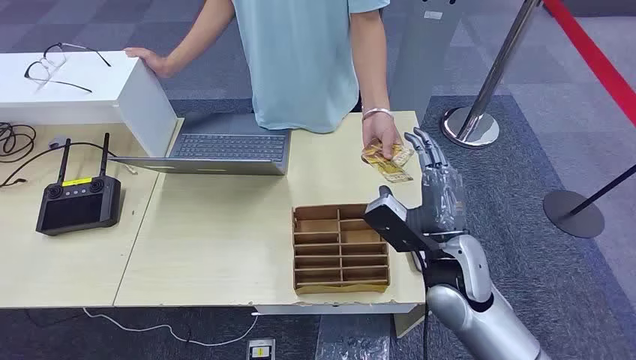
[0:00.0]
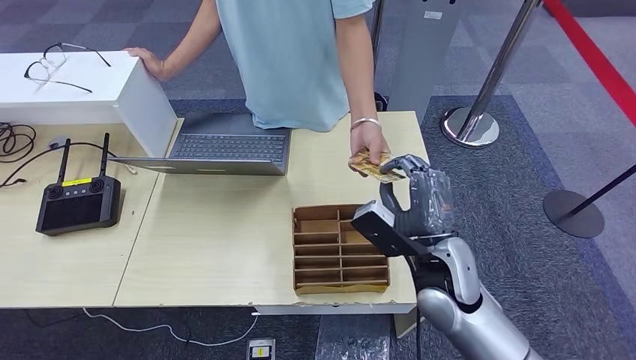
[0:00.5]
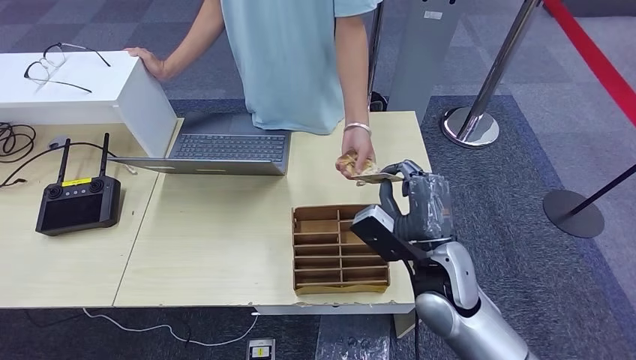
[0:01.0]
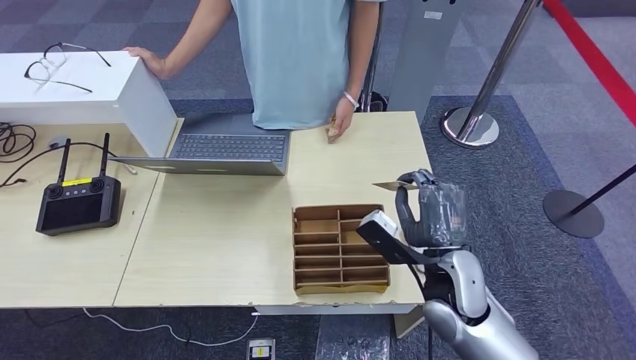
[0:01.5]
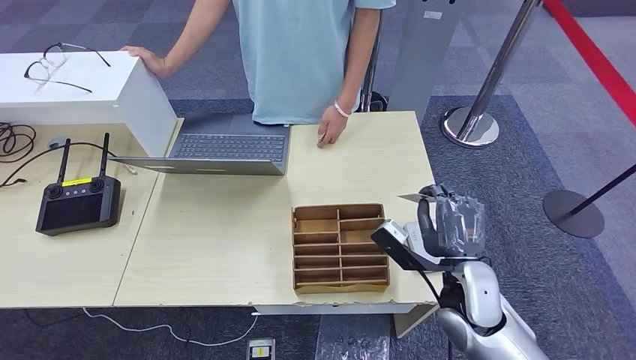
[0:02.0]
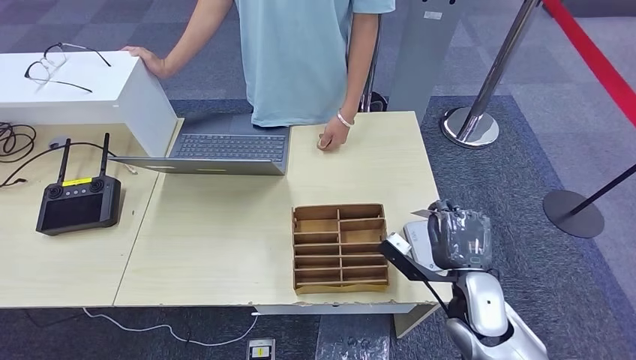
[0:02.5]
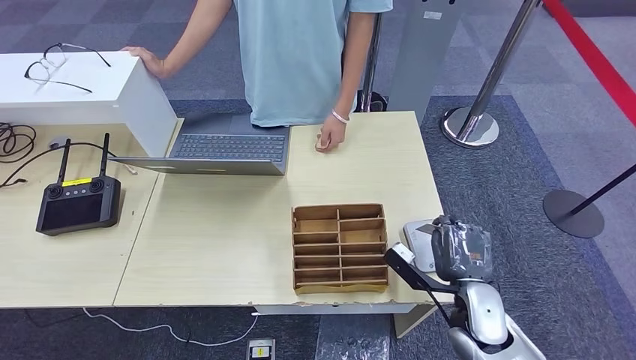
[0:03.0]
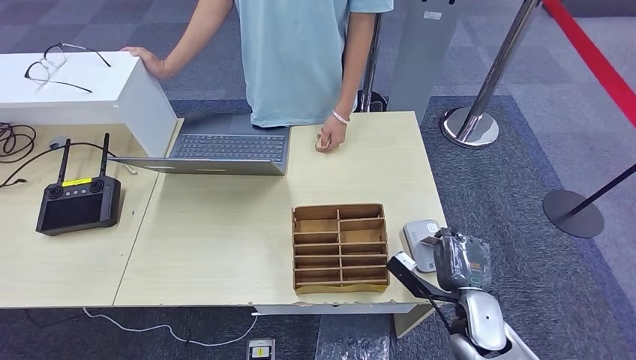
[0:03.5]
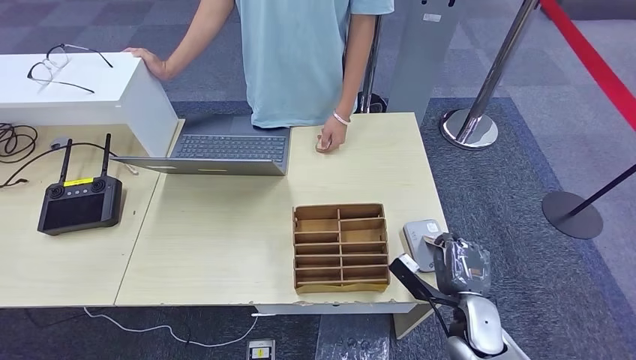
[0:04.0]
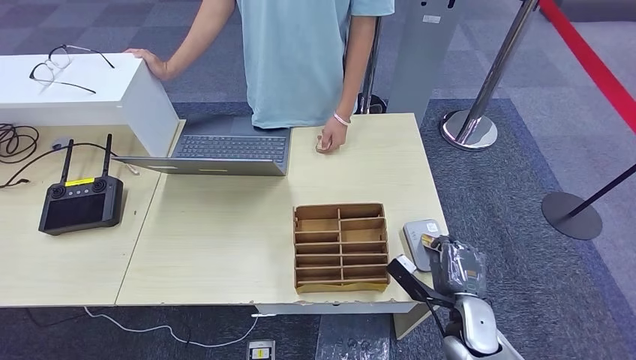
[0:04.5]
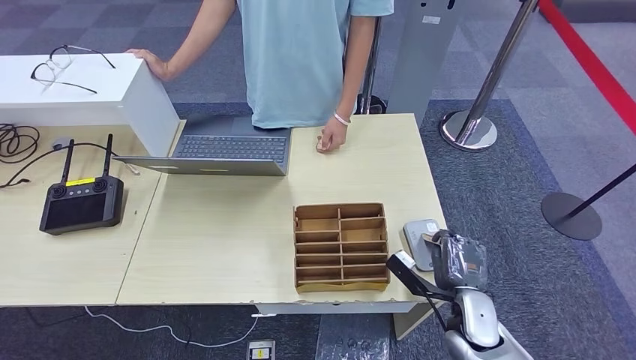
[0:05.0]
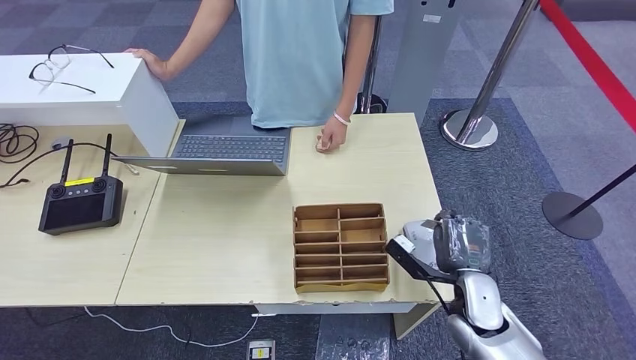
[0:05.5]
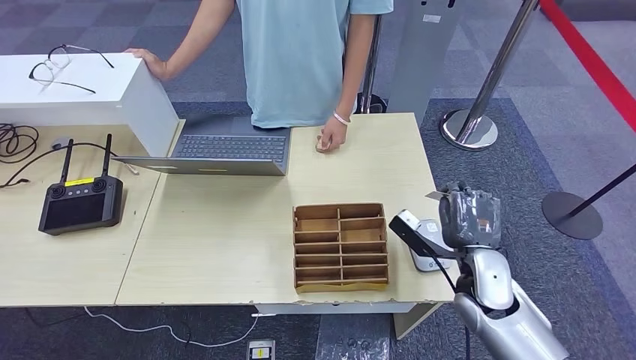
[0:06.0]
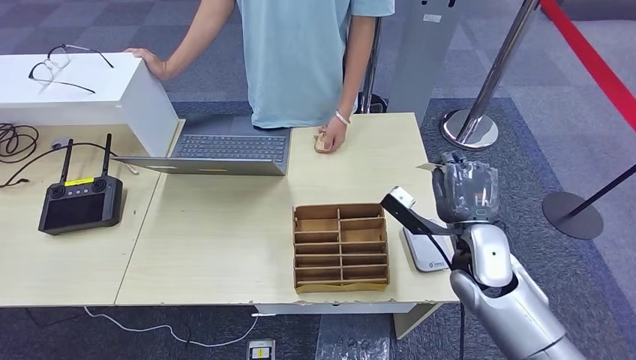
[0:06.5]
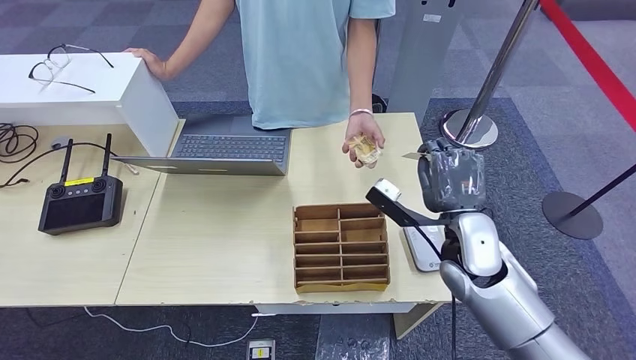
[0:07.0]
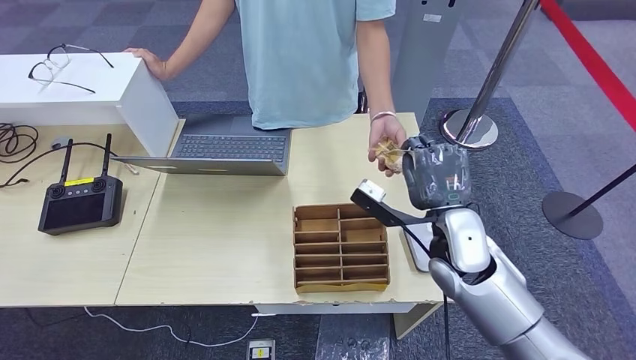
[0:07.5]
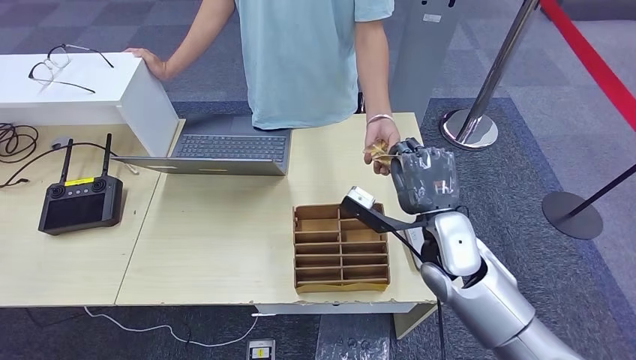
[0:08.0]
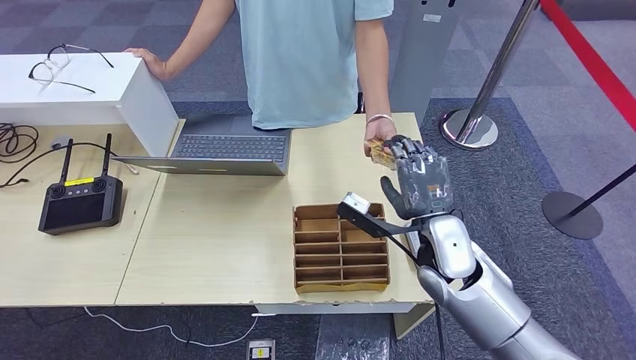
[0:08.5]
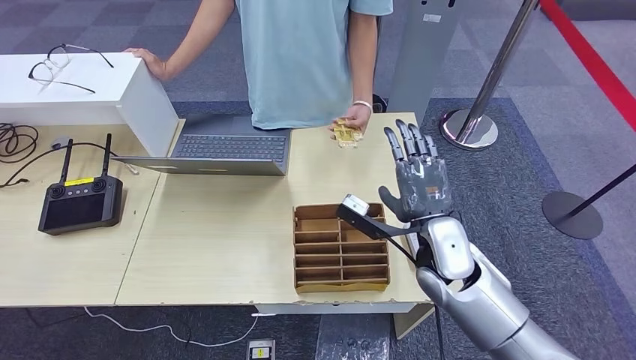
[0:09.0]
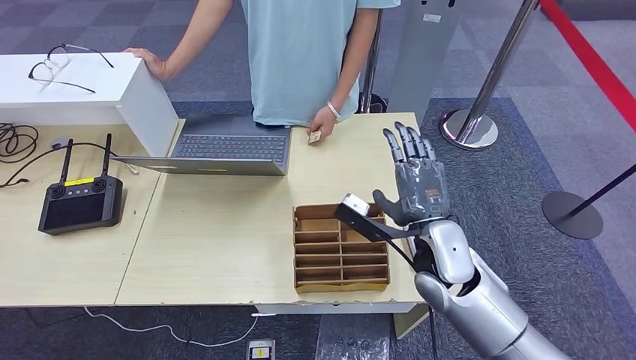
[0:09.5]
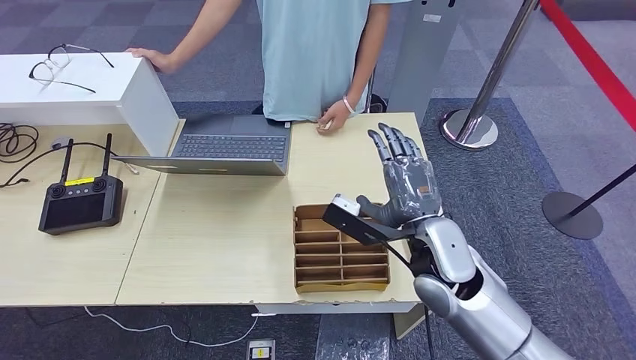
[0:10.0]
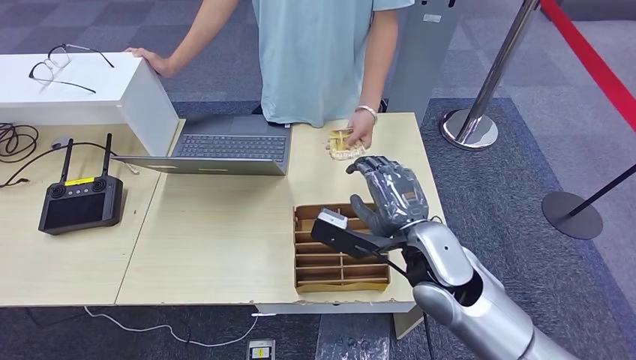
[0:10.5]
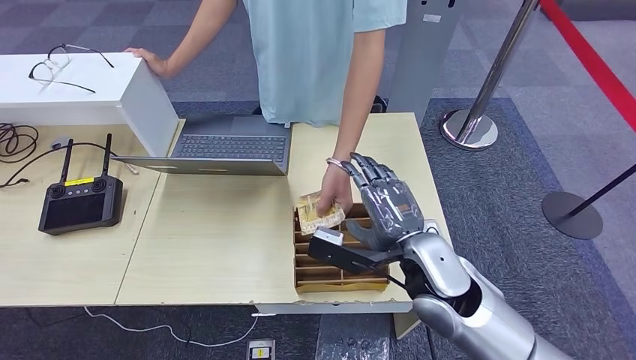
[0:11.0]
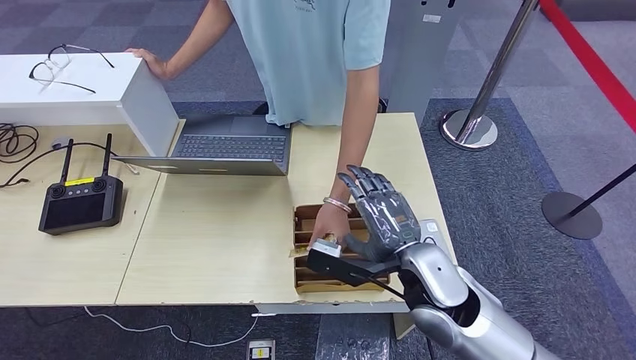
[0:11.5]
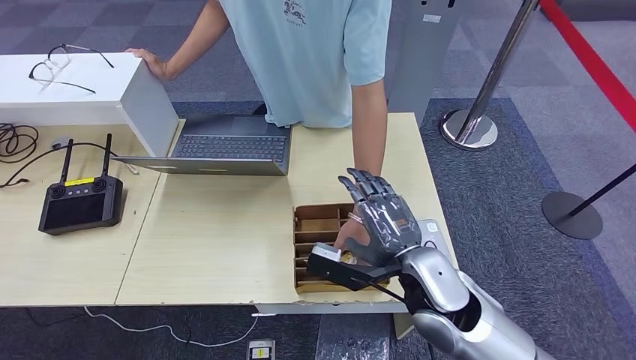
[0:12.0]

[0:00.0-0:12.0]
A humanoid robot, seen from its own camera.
Step, 0:00.0 to 0:01.0: Take the ID card from the person's hand.
Step, 0:01.5 to 0:04.5: Place the ID card on the card reader.
Step, 0:05.0 to 0:09.5: Hand the ID card to the person.
0:02.0 to 0:04.0: The right hand is displaced downward by about 10 cm.
0:04.0 to 0:06.0: The right hand shifts some 10 cm upward.
0:06.0 to 0:08.0: The right hand is displaced to the left and upward by some 10 cm.
0:08.0 to 0:10.0: There are only small adjustments of the hands.

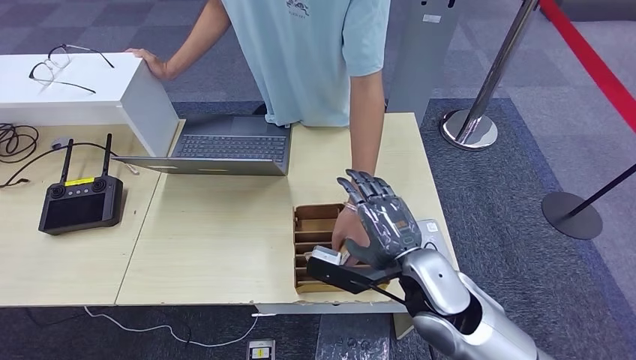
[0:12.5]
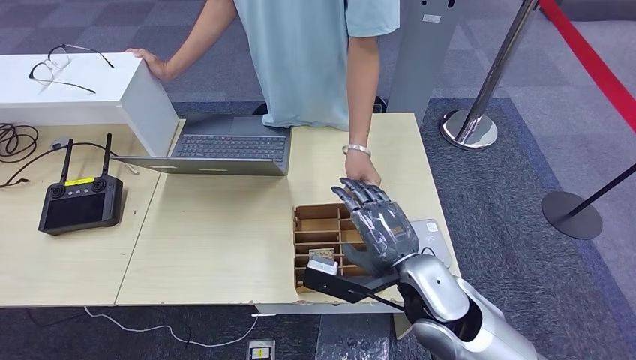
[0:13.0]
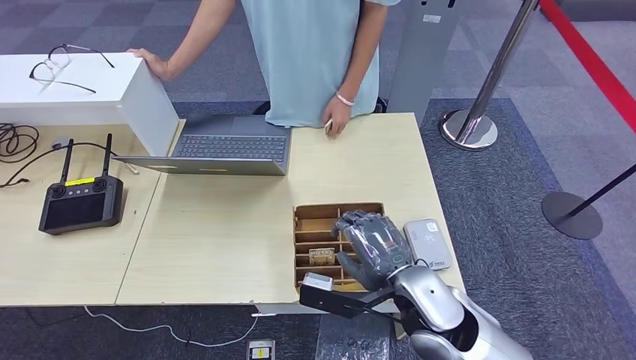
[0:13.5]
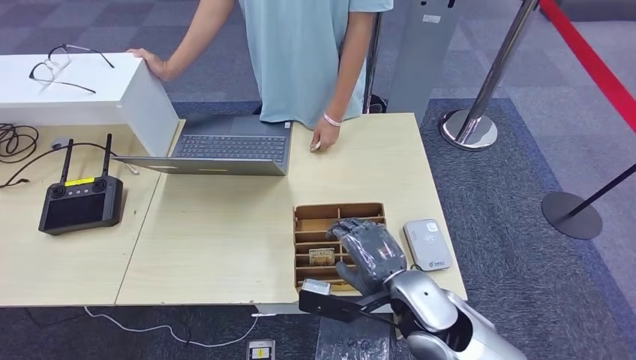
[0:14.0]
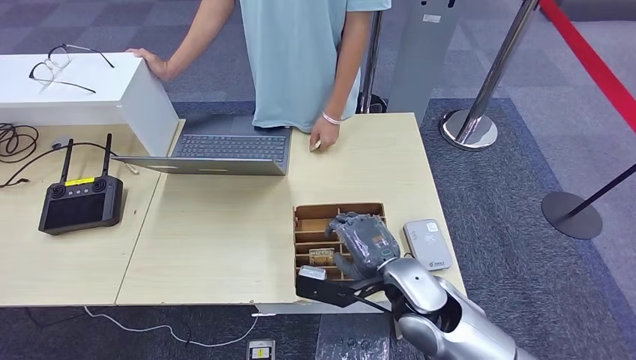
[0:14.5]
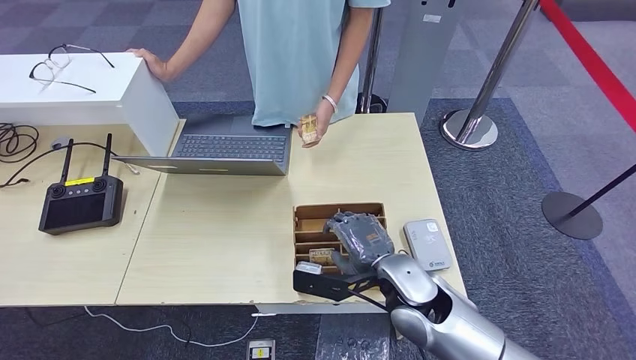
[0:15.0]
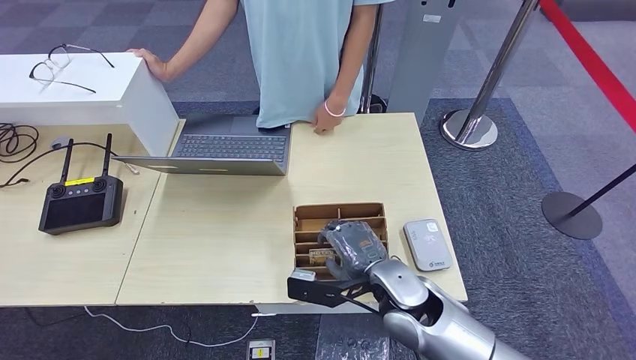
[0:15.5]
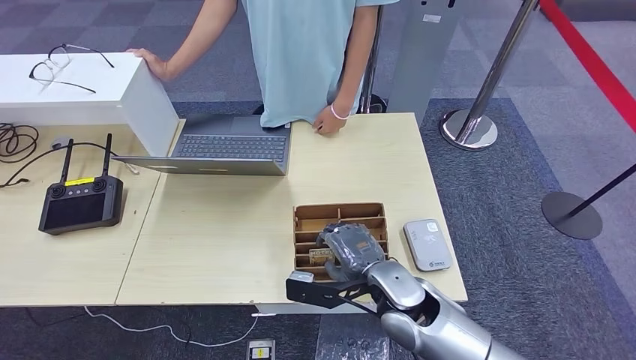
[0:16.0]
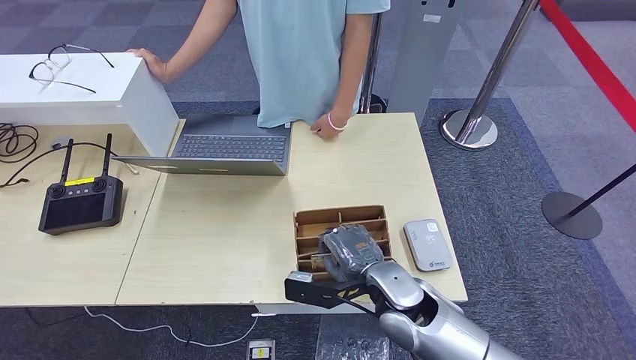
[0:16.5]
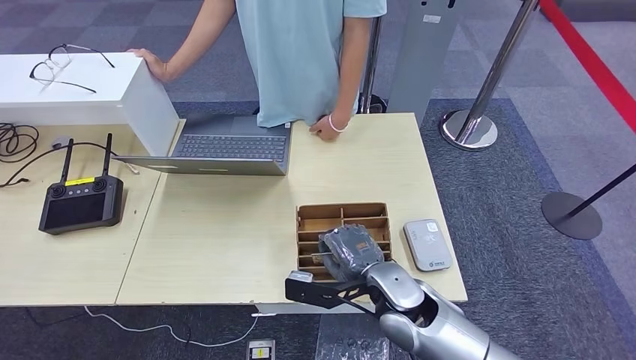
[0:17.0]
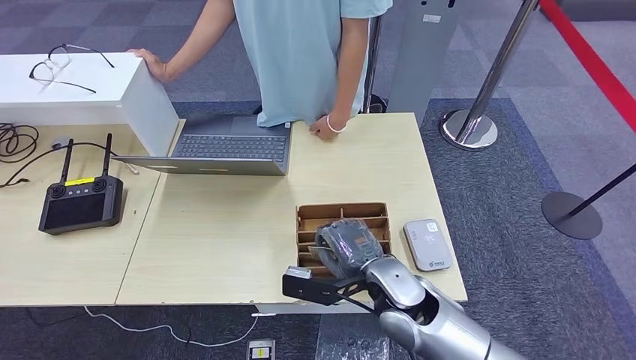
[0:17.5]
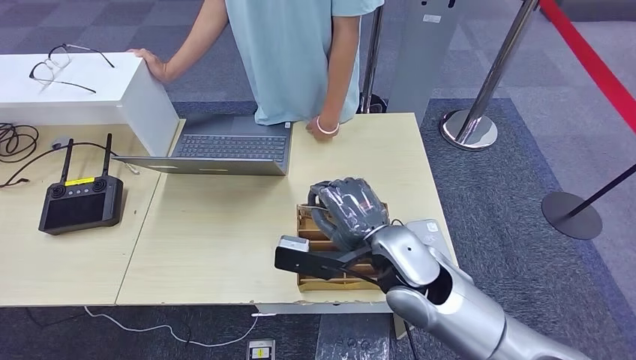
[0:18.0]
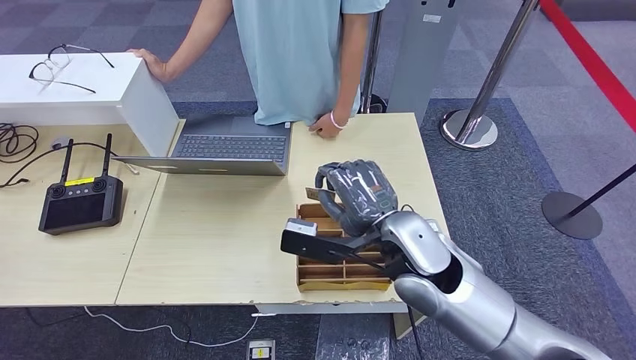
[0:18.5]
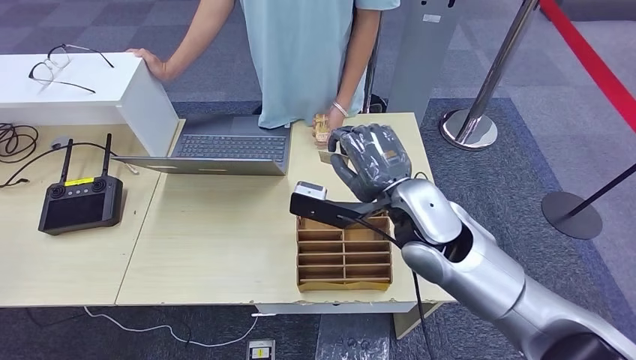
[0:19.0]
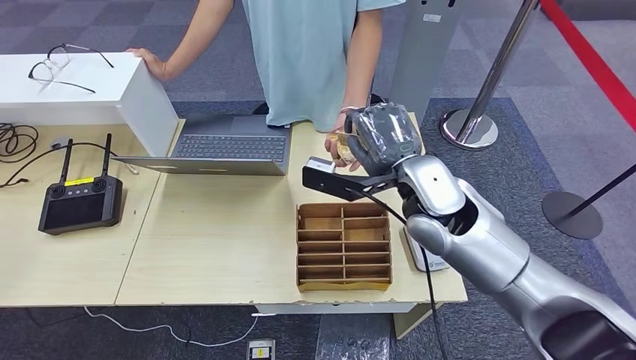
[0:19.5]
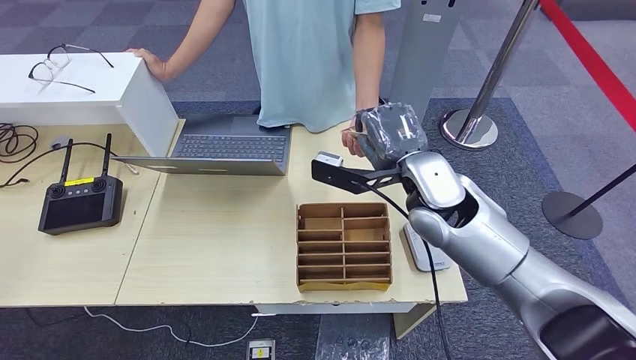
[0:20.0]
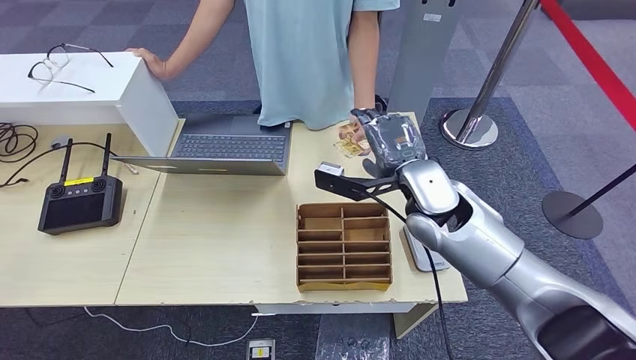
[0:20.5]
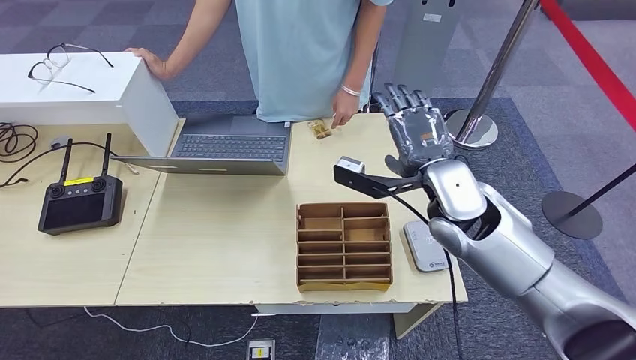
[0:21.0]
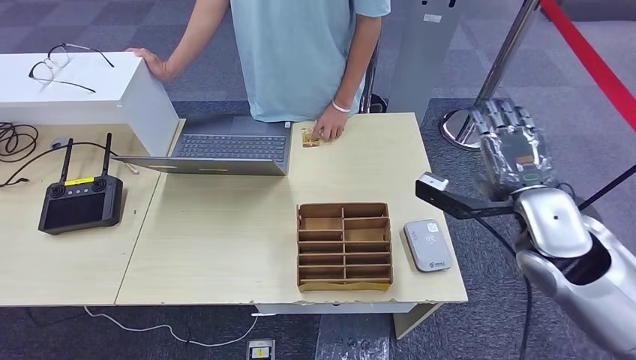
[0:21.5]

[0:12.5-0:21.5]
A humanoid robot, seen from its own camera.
Step, 0:15.5 to 0:18.5: Pick up the room key from the key card box.
Step, 0:19.0 to 0:21.5: Hand the room key to the person.
0:12.5 to 0:14.5: The hands make only small movements.
0:14.5 to 0:17.0: There are only small adjustments of the hands.
0:17.0 to 0:19.5: The right hand goes roughly 20 cm upward and forward.
0:19.5 to 0:21.5: The right hand travels to the right and backward by some 15 cm.
